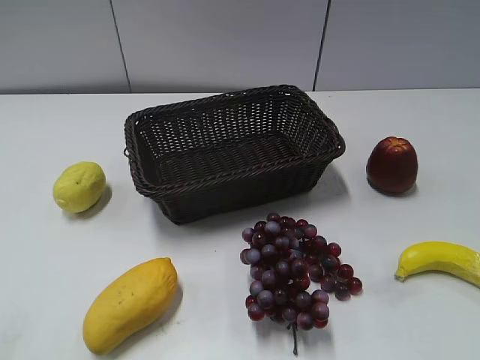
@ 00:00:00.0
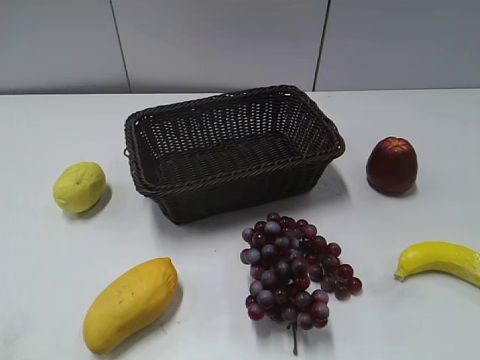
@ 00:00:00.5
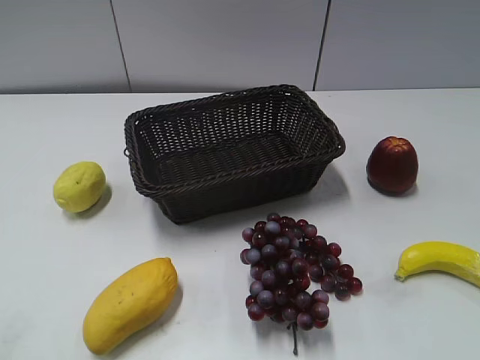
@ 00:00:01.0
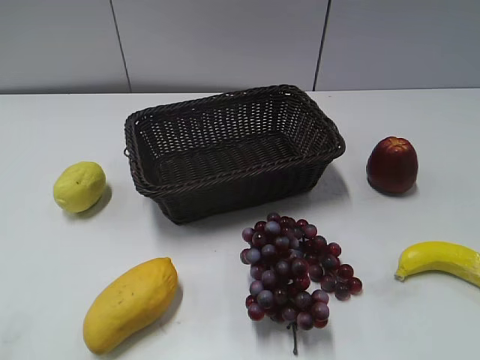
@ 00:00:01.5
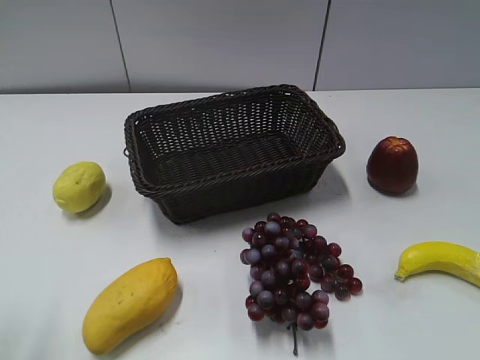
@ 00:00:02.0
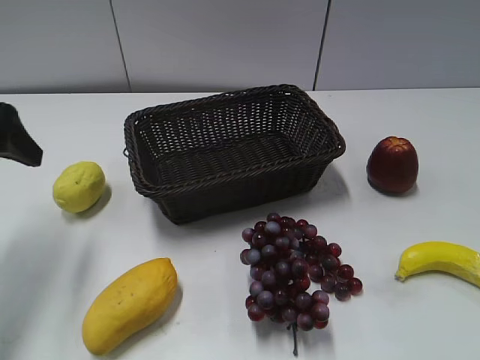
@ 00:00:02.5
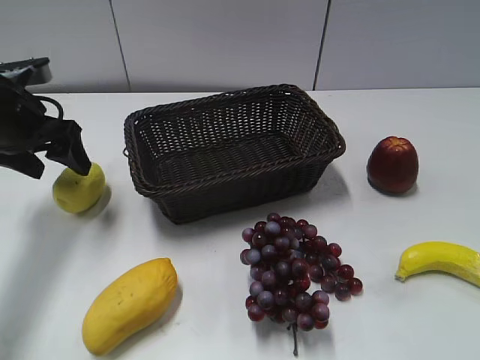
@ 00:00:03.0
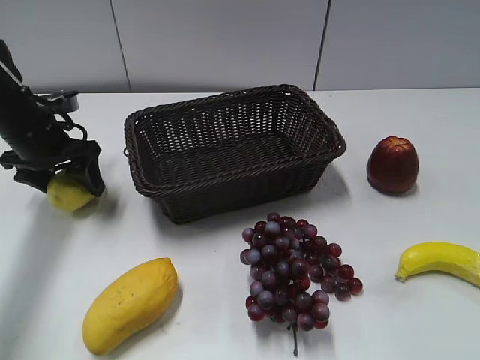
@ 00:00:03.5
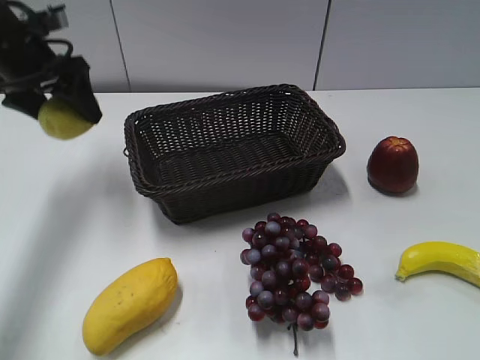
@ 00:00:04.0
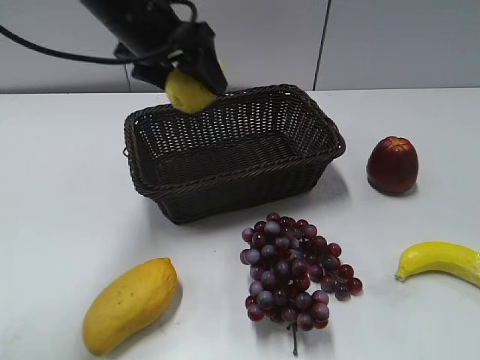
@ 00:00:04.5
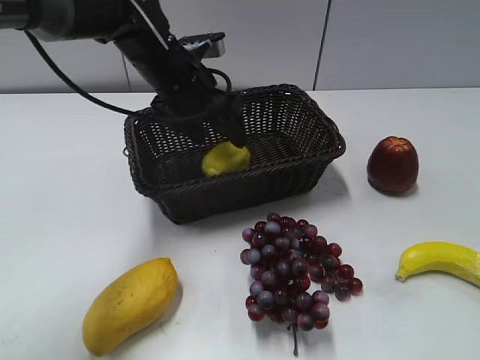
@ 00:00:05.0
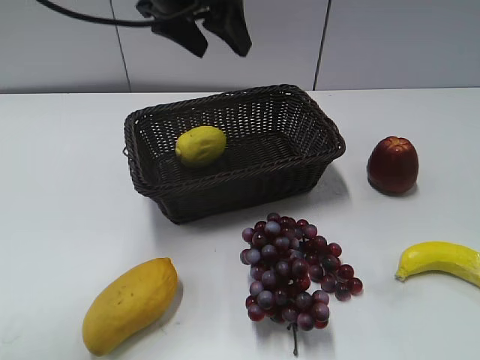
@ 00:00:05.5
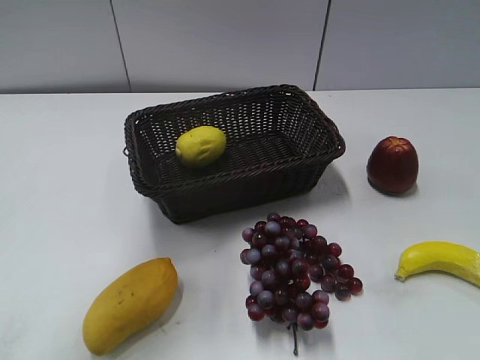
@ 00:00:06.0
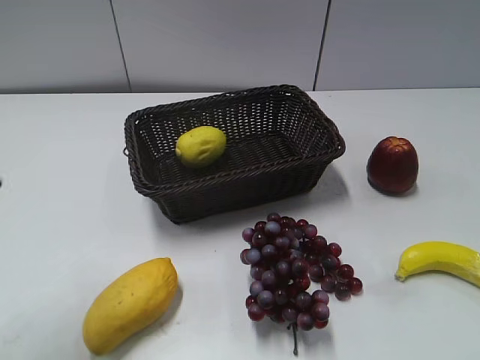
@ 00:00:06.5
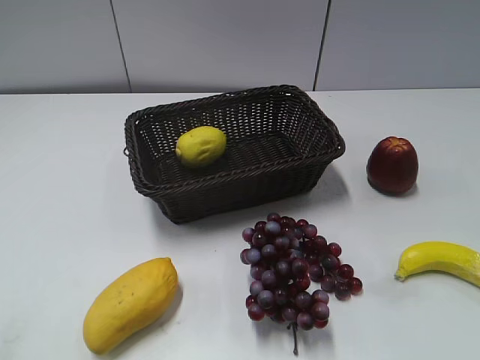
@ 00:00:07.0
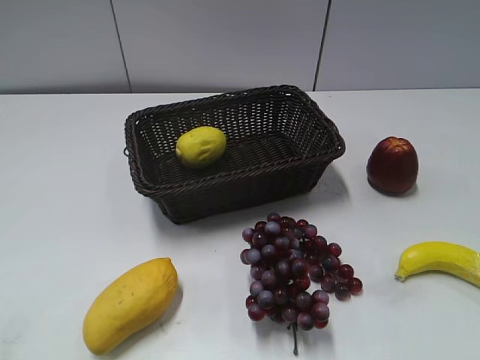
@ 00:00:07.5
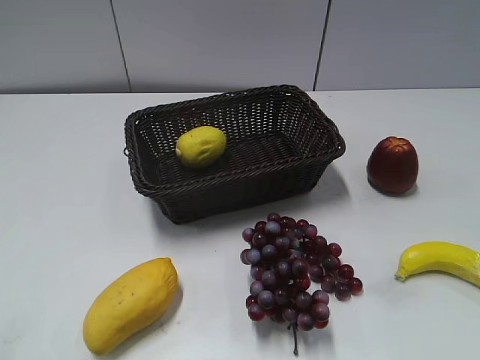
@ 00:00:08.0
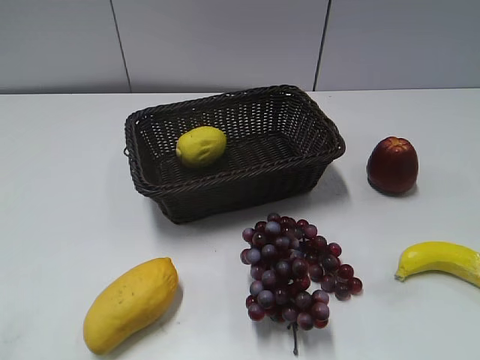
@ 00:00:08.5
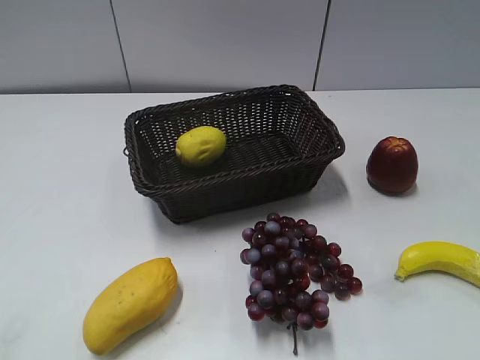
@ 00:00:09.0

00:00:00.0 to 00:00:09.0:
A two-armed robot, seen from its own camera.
Step, 00:00:02.5 to 00:00:03.5: Grasp the lemon with left gripper.
Step, 00:00:04.0 to 00:00:05.0: Place the lemon in the basket with left gripper.
00:00:02.0 to 00:00:04.5: The left gripper travels forward and to the right by some 35 cm, and closes its fingers.
00:00:04.5 to 00:00:07.0: The left gripper heads backward and to the left, covering some 40 cm, and opens, then closes again.

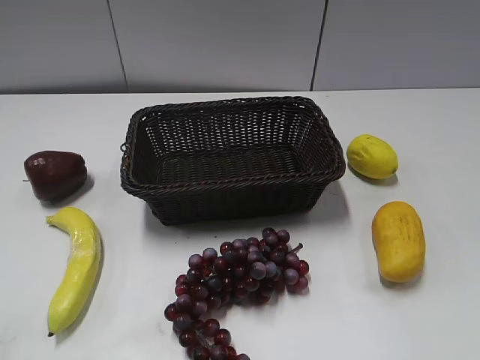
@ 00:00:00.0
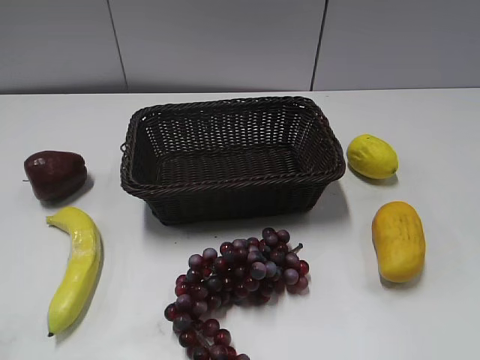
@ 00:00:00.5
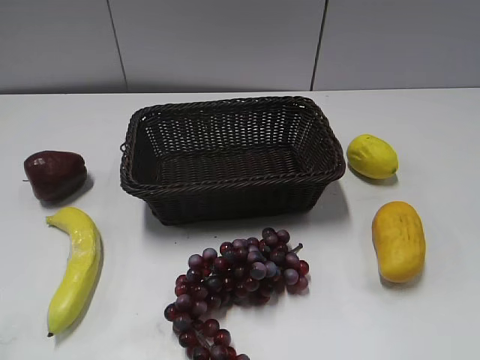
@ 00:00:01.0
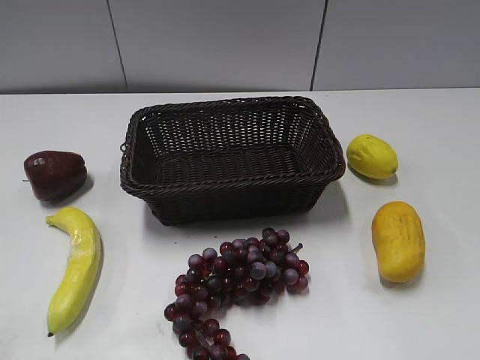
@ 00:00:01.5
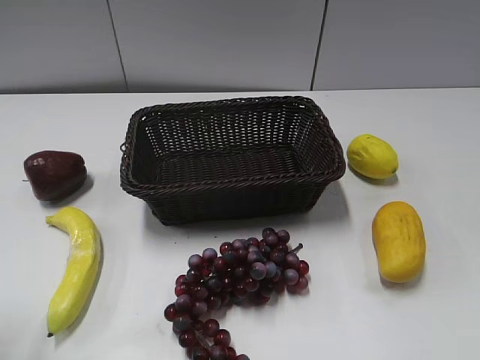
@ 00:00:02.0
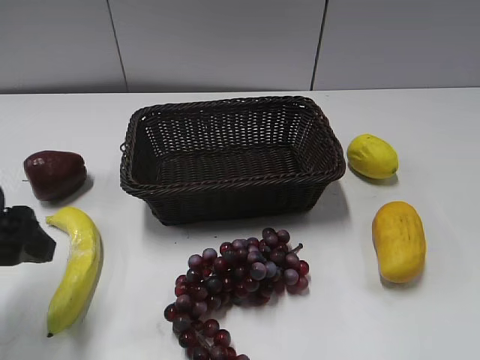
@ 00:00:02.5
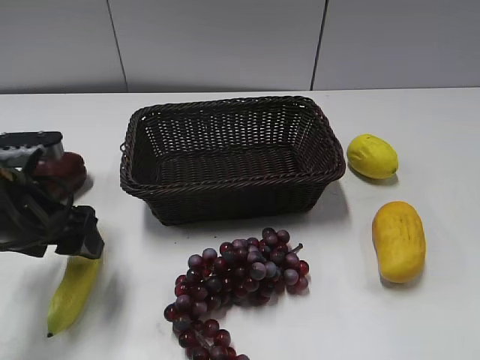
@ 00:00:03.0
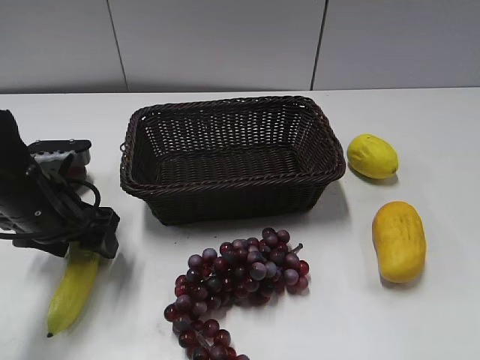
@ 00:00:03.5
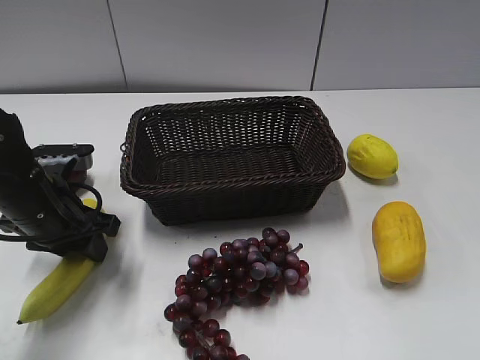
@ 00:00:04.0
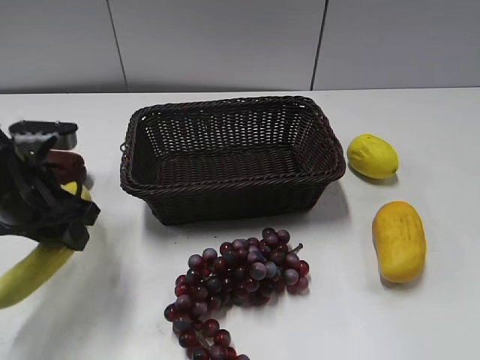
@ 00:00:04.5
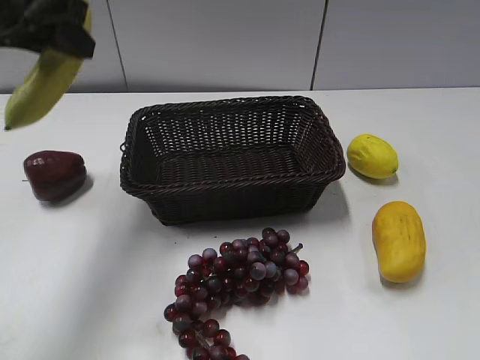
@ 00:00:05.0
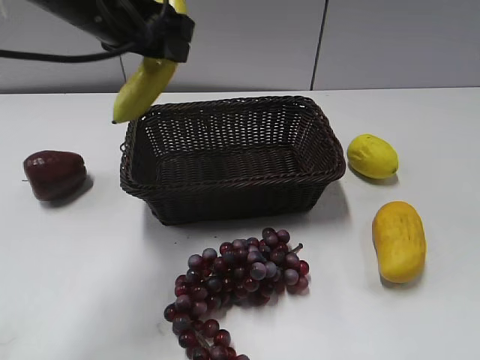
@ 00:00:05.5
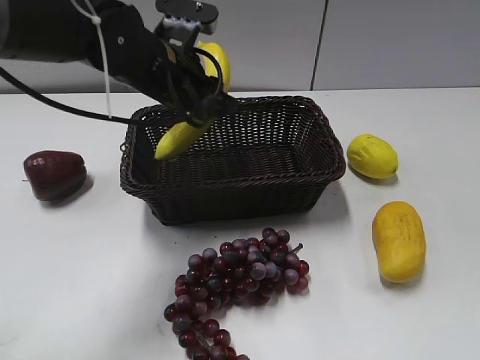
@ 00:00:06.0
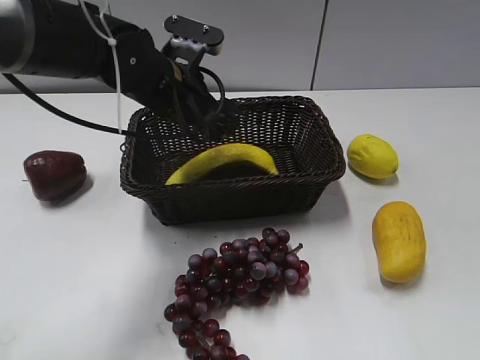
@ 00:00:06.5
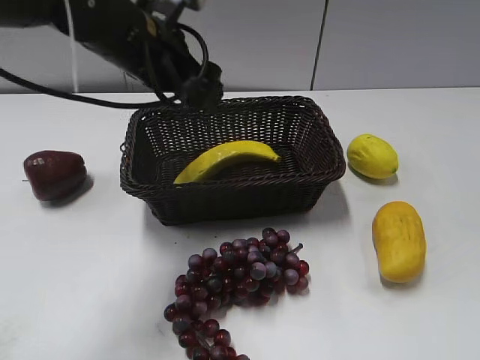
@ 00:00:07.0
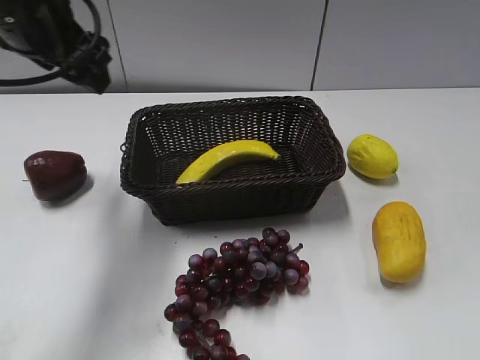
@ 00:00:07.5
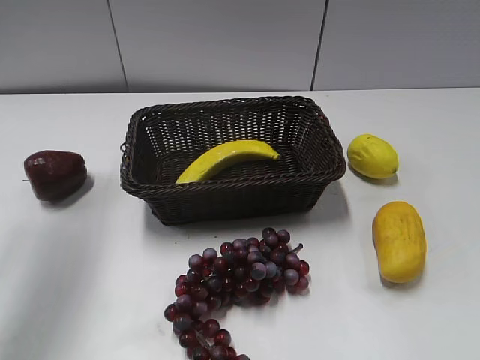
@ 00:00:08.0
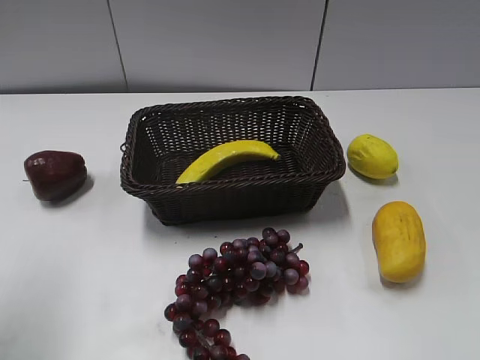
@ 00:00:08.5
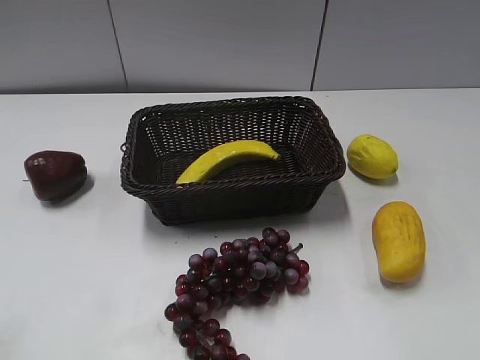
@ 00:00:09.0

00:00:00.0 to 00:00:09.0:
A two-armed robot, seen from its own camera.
Step, 00:00:02.5 to 00:00:04.0: Grasp the banana with left gripper.
Step, 00:00:04.5 to 00:00:06.5: Place the banana in the basket with left gripper.
00:00:02.0 to 00:00:04.5: The left gripper travels forward, downward and to the right by about 20 cm, and closes.
00:00:04.5 to 00:00:07.0: The left gripper goes up and down, approximately 15 cm each way, reversing 2 times, and opens up.
00:00:07.0 to 00:00:09.0: The left gripper is displaced backward and to the left by some 35 cm.

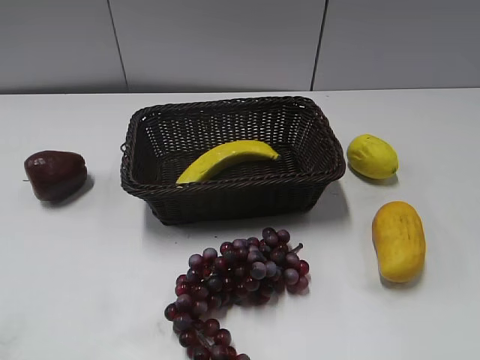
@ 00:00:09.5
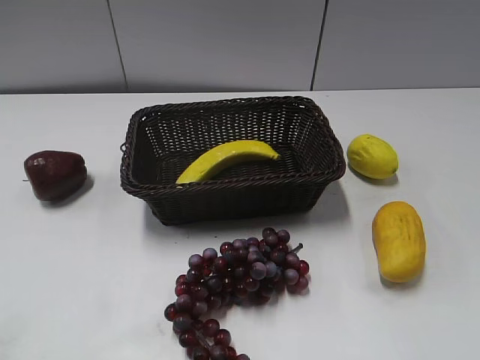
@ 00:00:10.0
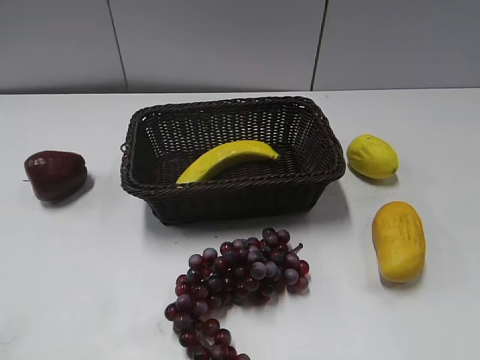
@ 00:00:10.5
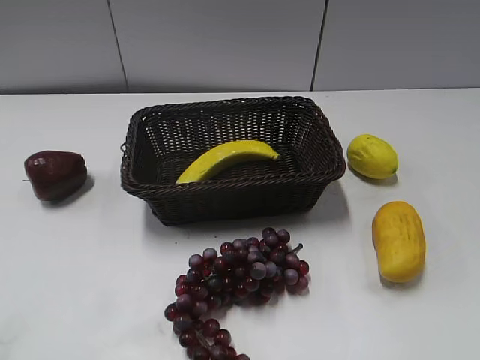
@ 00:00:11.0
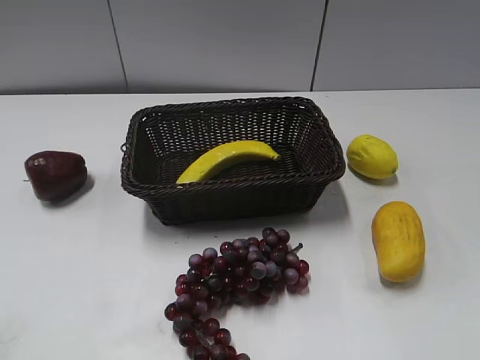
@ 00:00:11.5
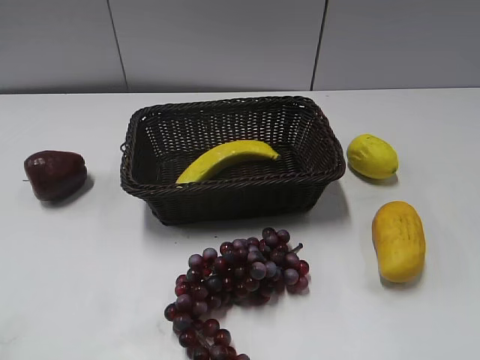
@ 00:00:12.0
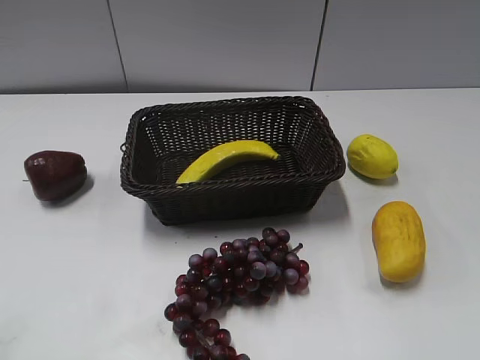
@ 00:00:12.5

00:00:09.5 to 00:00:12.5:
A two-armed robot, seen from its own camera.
00:00:09.5 to 00:00:11.0: Neither gripper changes place.

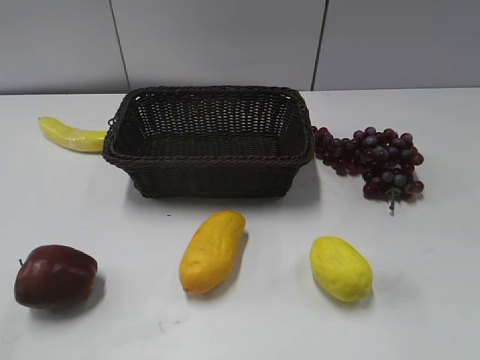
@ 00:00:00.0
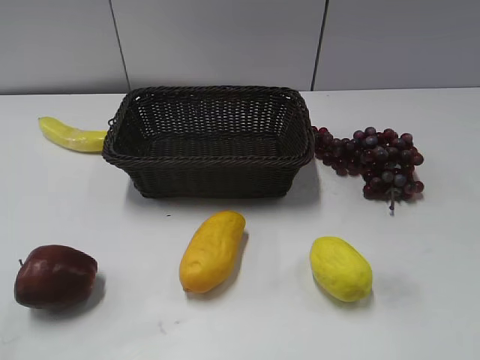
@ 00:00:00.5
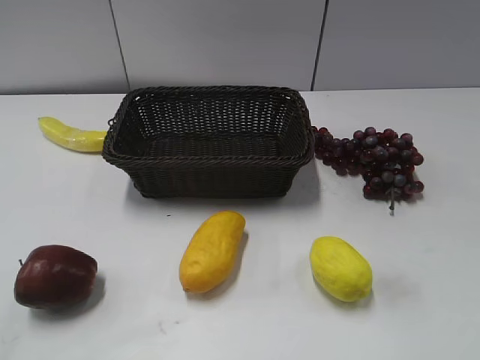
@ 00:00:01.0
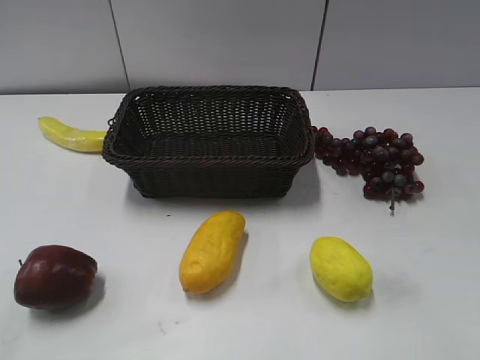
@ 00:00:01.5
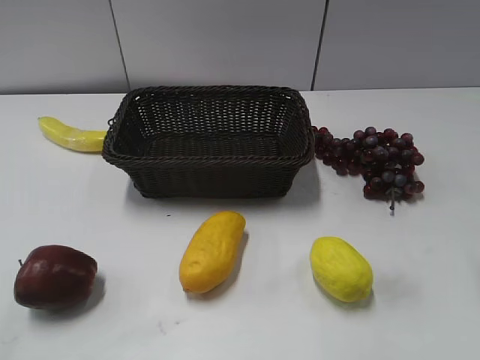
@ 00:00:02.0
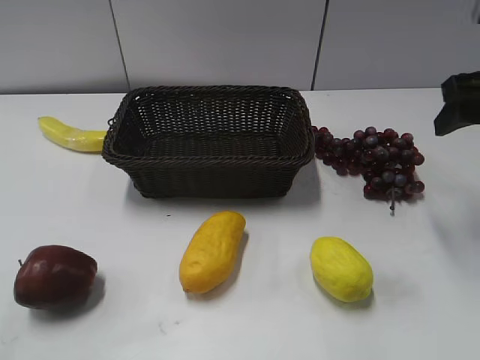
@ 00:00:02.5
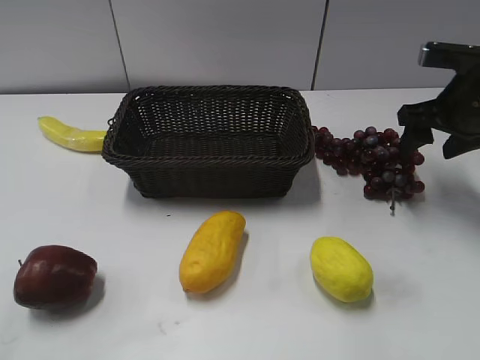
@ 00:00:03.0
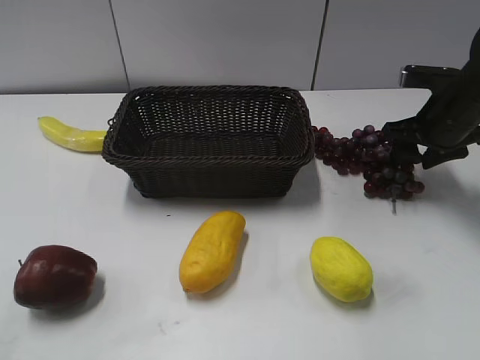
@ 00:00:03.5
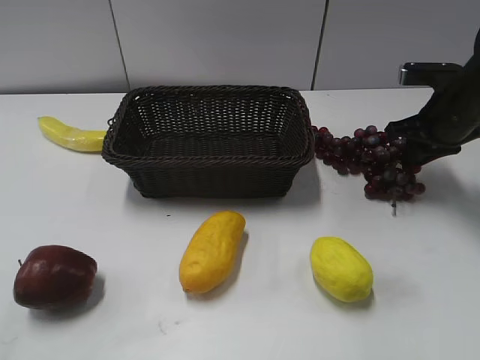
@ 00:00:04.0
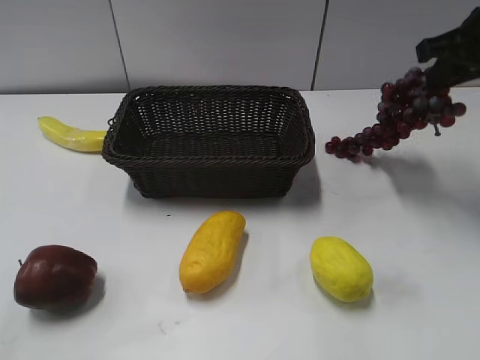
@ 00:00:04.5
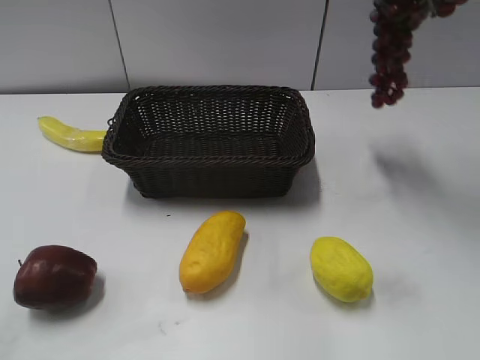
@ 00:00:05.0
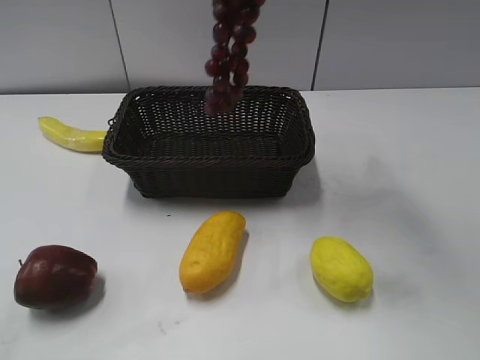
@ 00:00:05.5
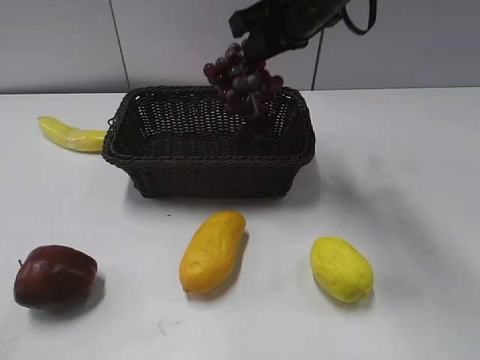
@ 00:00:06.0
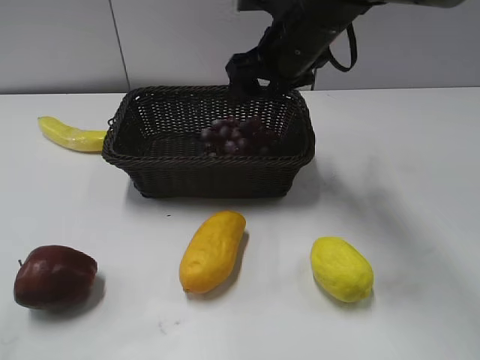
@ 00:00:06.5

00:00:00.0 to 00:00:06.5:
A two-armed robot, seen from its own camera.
Step, 00:00:02.5 to 00:00:04.0: Grasp the grape with right gripper.
Step, 00:00:04.5 to 00:00:06.5: Place the grape in the basket with right gripper.
00:00:02.0 to 00:00:04.5: The right gripper travels forward by roughly 15 cm, and closes.
00:00:04.5 to 00:00:06.5: The right gripper shifts some 20 cm to the left, and opens.
